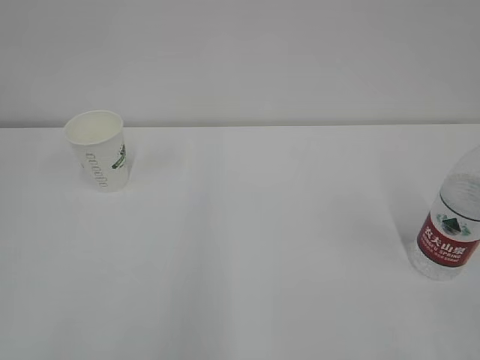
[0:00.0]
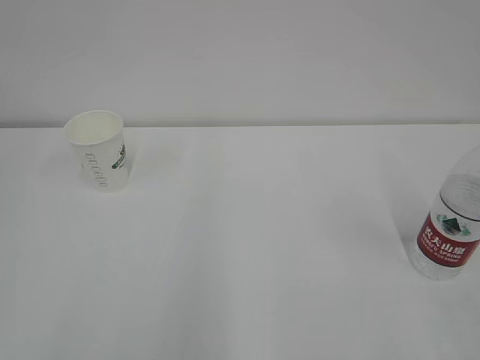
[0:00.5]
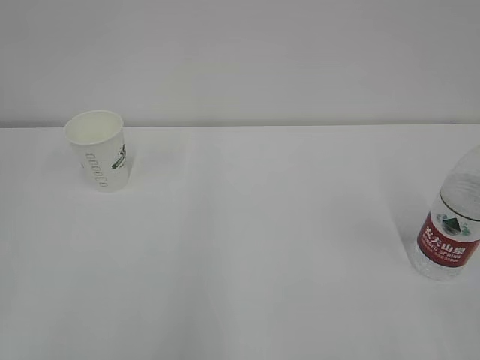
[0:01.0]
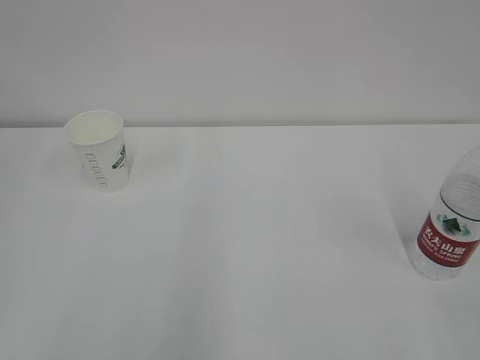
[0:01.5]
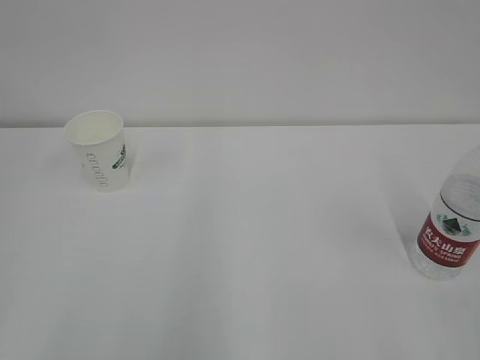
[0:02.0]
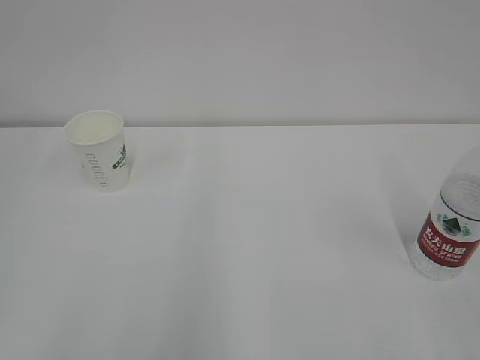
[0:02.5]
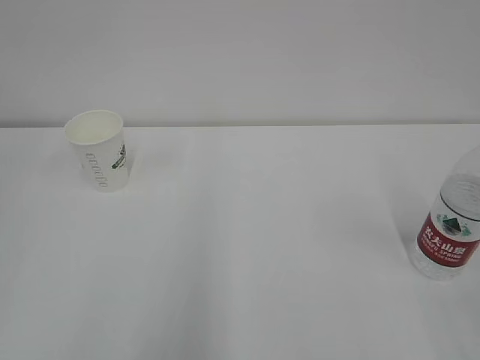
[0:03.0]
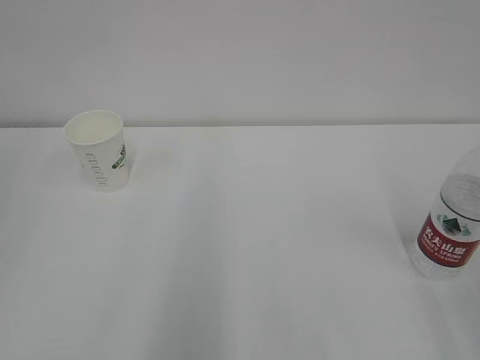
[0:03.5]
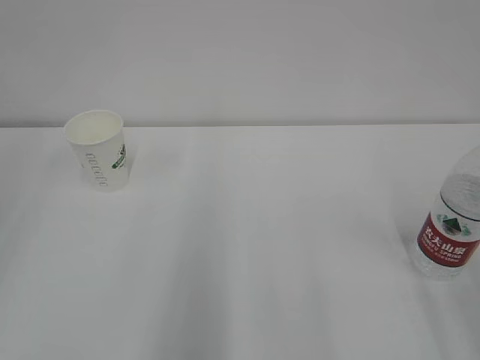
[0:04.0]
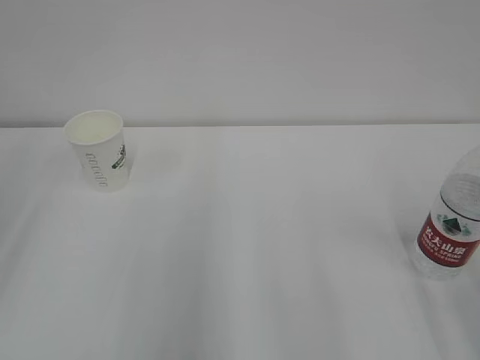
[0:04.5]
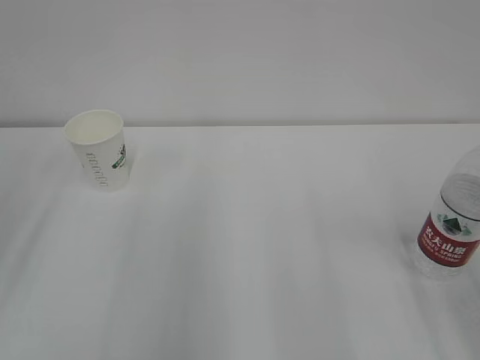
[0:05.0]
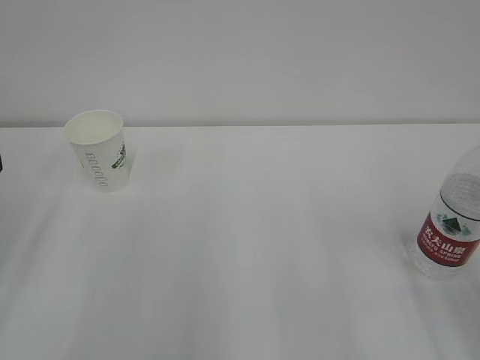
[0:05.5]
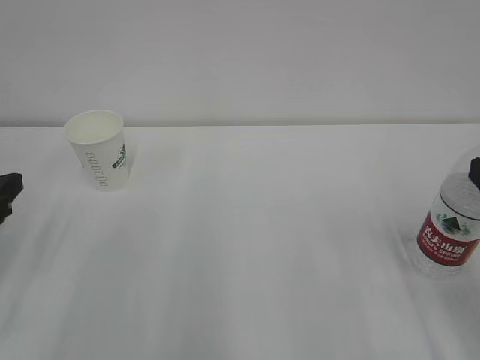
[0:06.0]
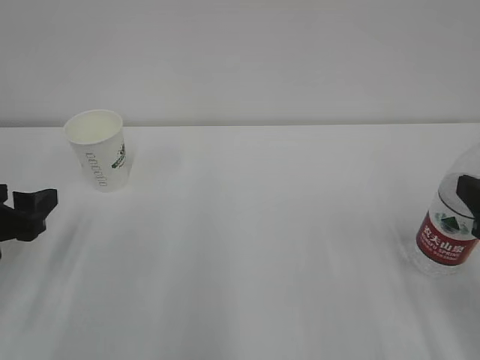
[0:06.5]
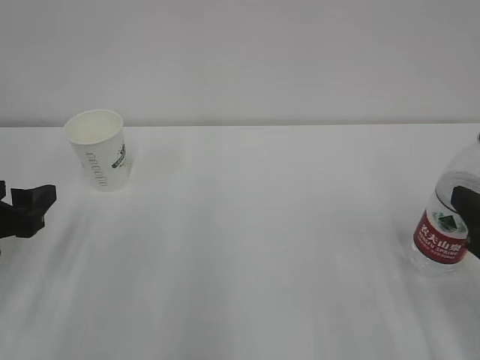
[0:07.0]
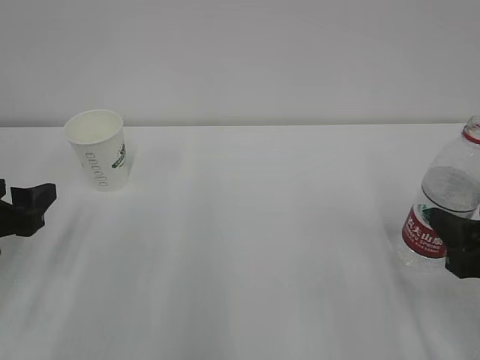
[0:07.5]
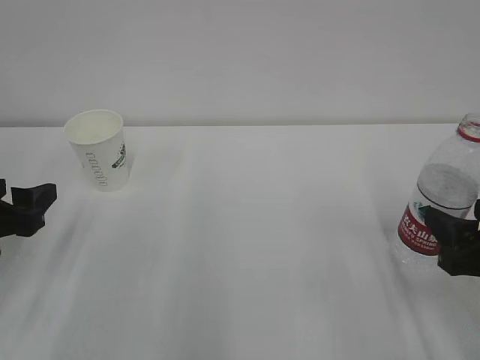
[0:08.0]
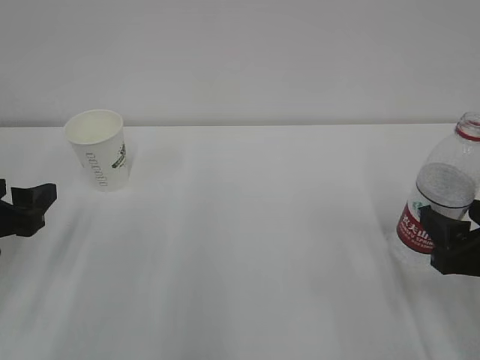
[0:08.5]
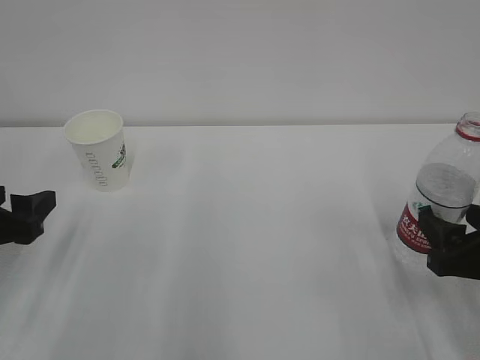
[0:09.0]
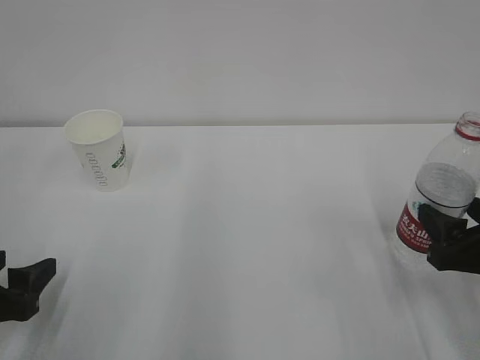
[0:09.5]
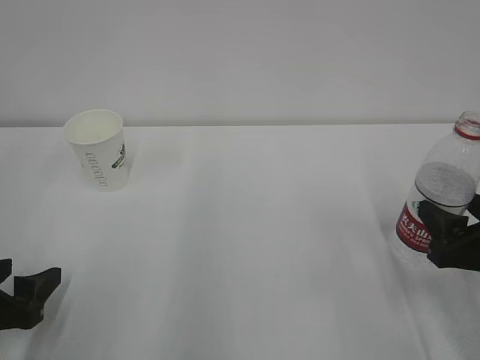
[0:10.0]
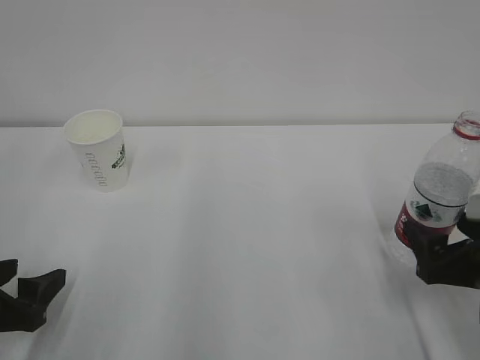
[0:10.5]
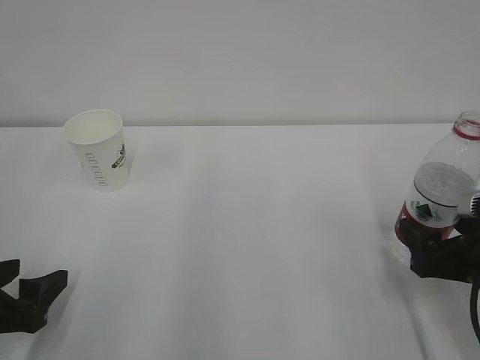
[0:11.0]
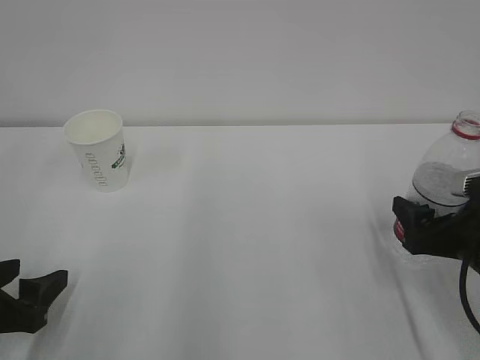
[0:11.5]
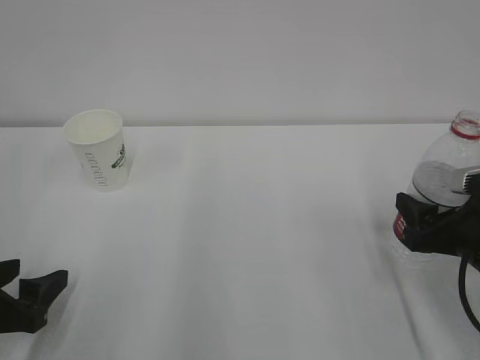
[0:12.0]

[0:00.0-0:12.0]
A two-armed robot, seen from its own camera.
0:06.0 to 0:08.0: The right gripper is displaced downward by approximately 10 cm.
0:08.0 to 0:10.0: The left gripper goes about 10 cm backward and downward.
0:10.0 to 0:12.0: The right gripper opens and closes again.

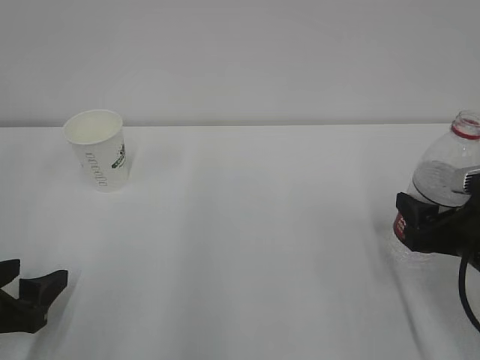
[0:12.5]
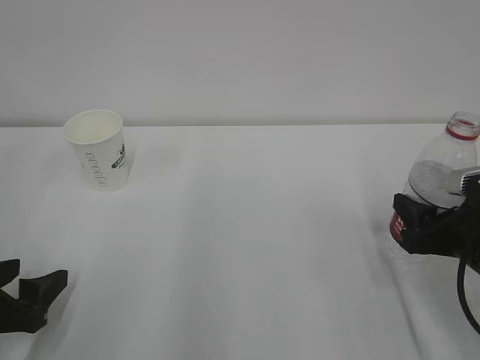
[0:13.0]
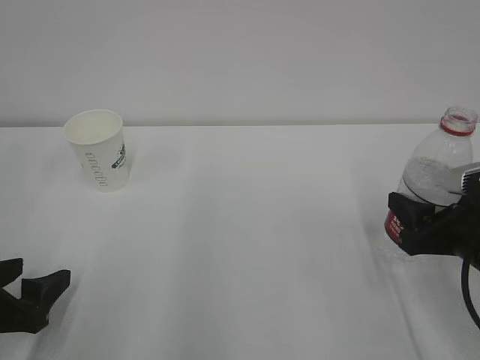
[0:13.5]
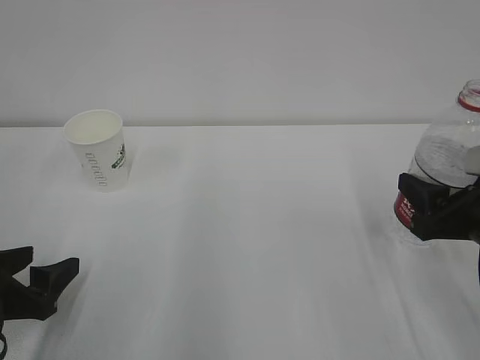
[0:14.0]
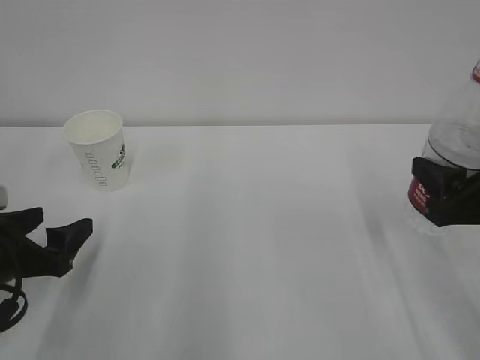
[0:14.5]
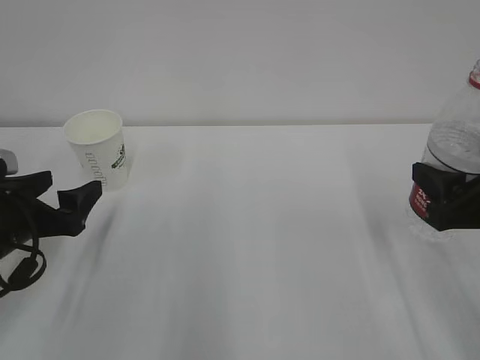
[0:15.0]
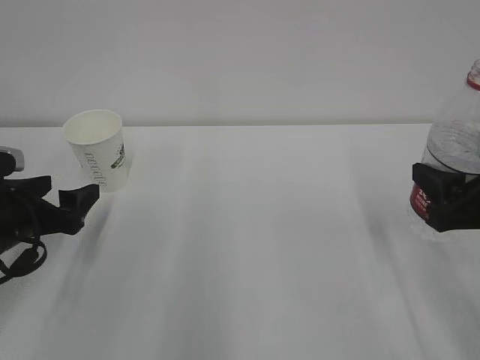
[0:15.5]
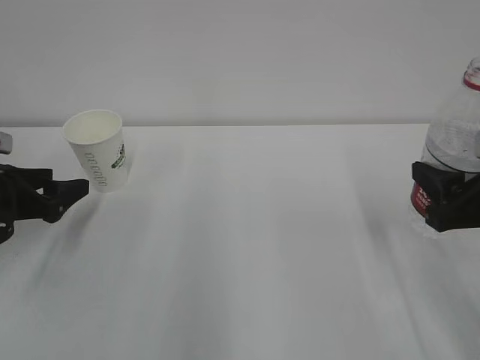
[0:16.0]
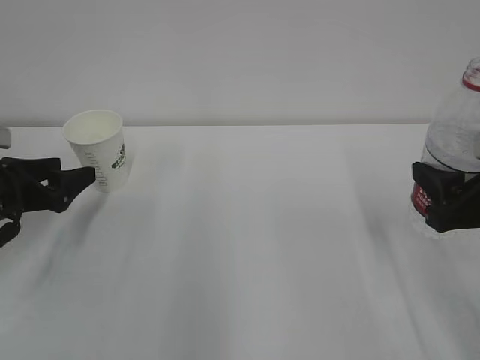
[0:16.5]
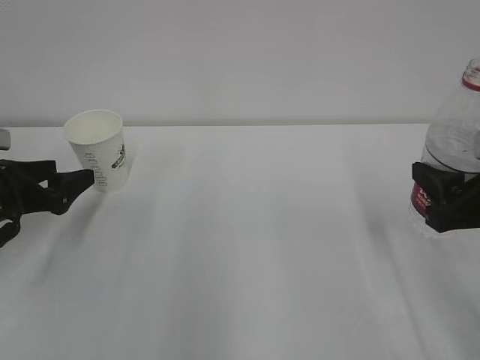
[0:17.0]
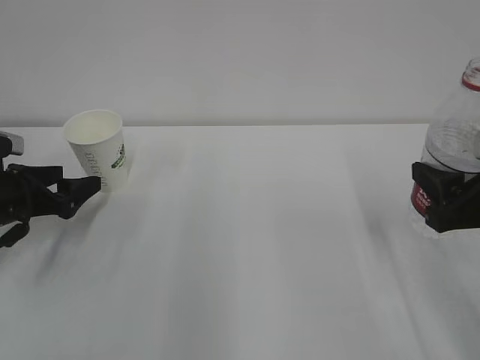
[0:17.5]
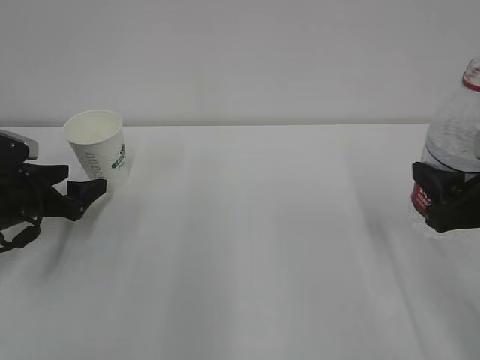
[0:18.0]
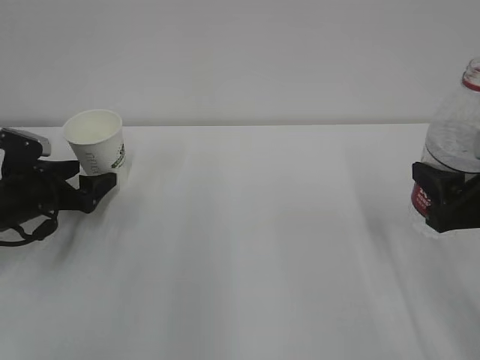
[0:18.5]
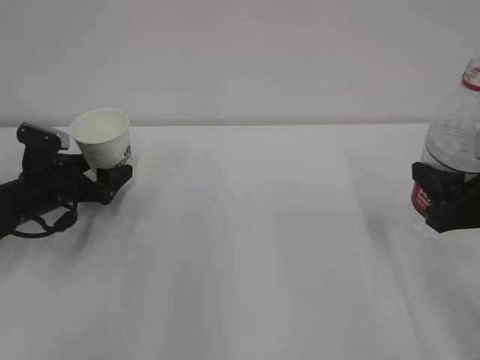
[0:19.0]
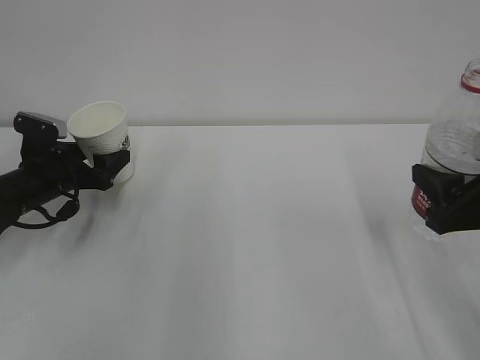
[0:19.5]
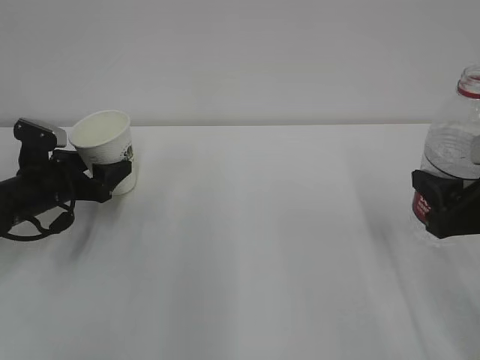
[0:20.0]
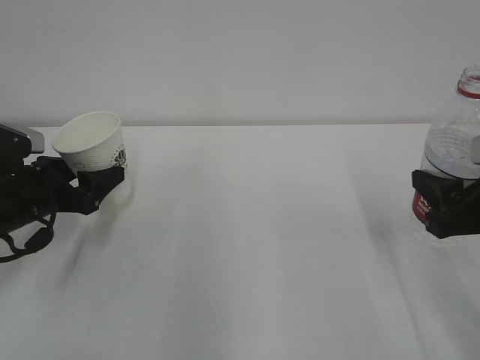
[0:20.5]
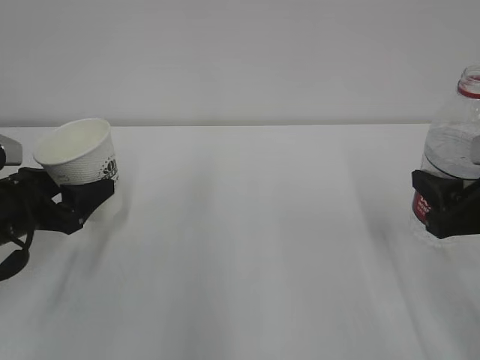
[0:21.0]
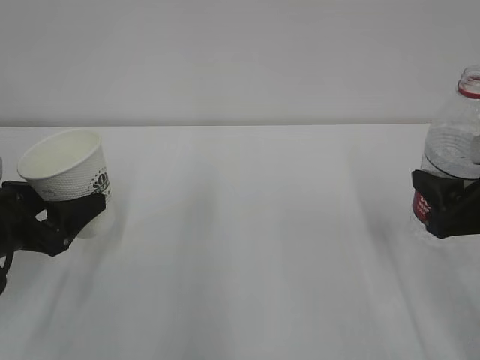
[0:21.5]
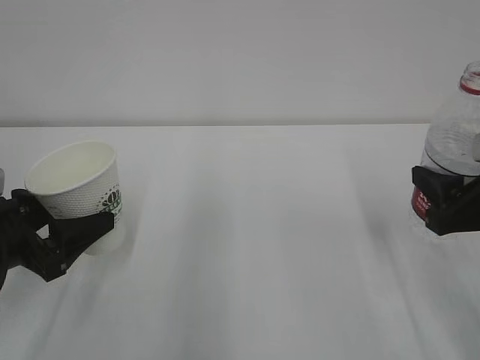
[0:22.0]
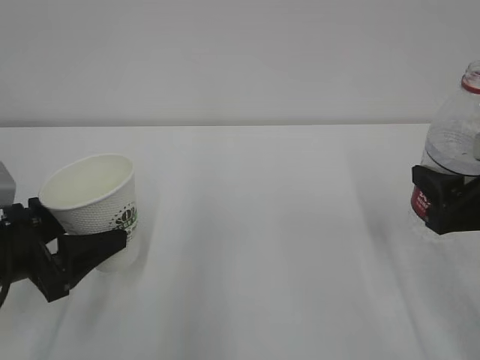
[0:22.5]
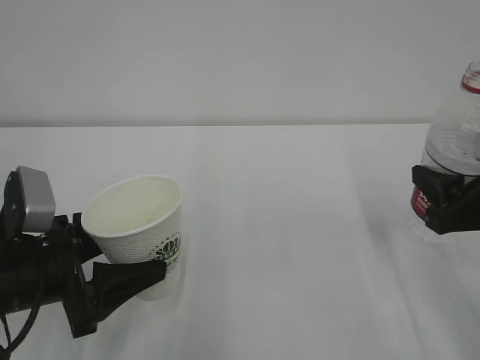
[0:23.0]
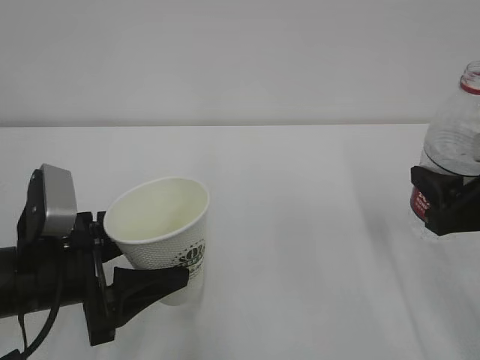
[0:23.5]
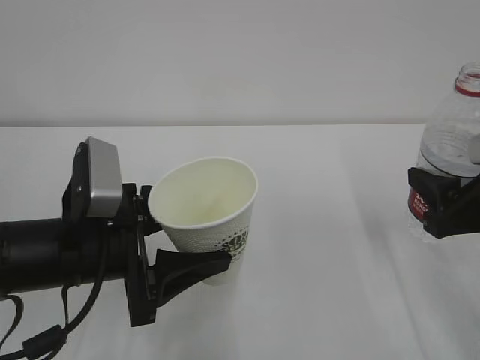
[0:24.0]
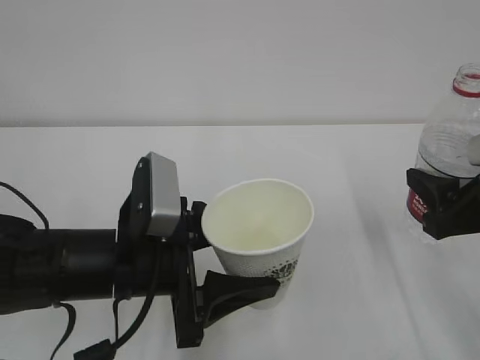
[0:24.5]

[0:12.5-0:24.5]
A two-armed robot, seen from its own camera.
0:12.5 to 0:14.5: The right gripper travels upward by some 5 cm. Meanwhile the left gripper changes place by about 5 cm, and opens up.
0:14.5 to 0:16.5: The left gripper moves forward, about 10 cm.
0:16.5 to 0:18.5: The left gripper moves approximately 5 cm, and opens.
0:18.5 to 0:20.5: The left gripper changes place by roughly 5 cm, and closes its fingers.
0:20.5 to 0:22.5: The left gripper is displaced backward by some 10 cm.
0:22.5 to 0:24.5: The left gripper travels to the right by some 15 cm.

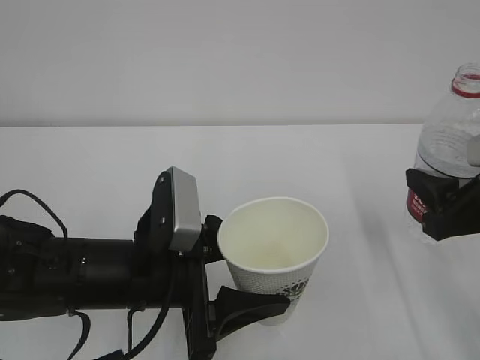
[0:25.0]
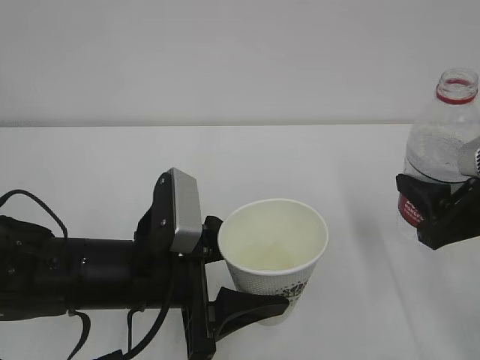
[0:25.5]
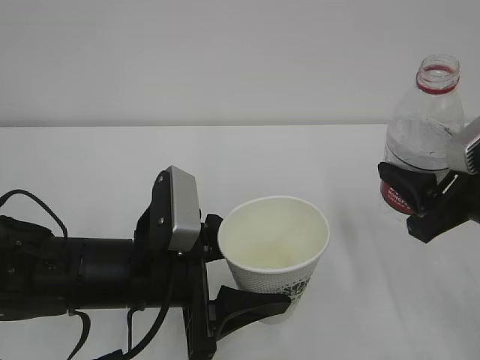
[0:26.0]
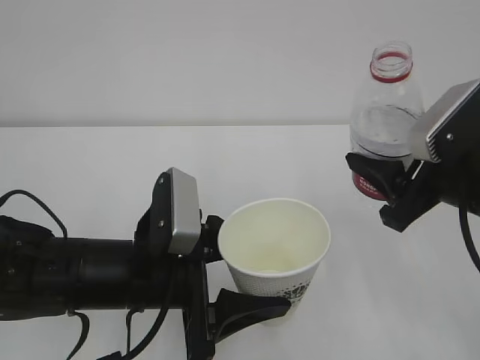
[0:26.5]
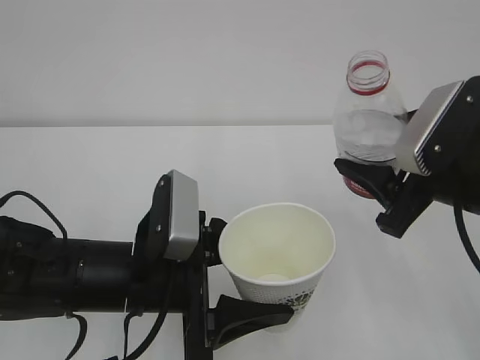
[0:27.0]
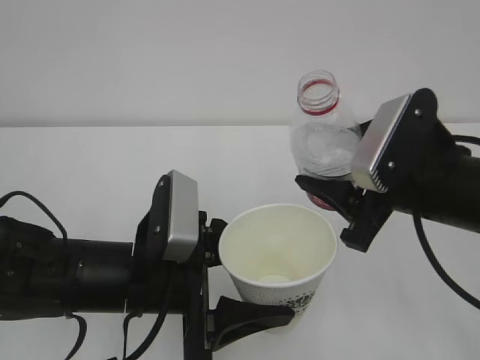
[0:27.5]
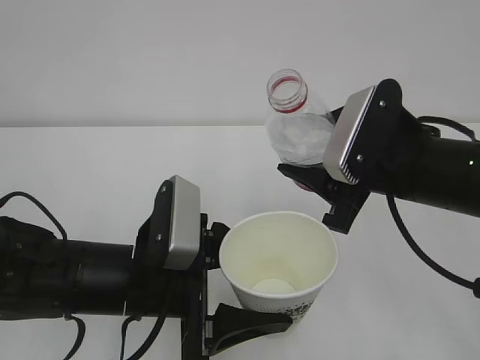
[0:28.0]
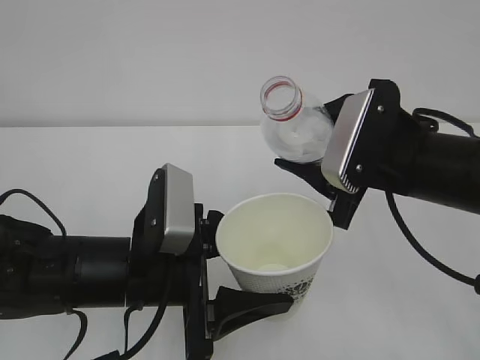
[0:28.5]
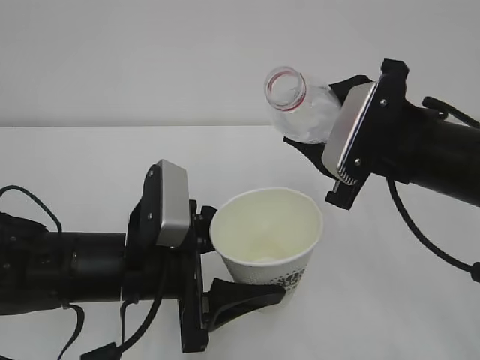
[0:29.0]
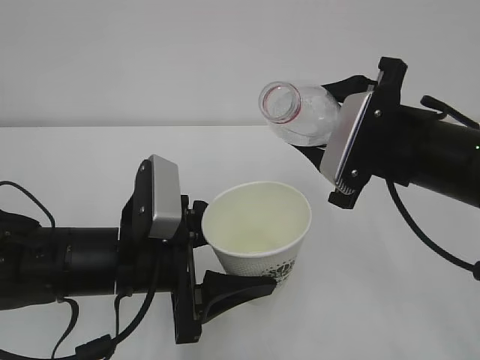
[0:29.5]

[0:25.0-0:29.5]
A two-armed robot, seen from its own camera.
0:25.0 to 0:27.0: The right gripper is displaced to the left by about 5 cm.
0:27.0 to 0:29.5: The right gripper changes place by approximately 5 cm.
